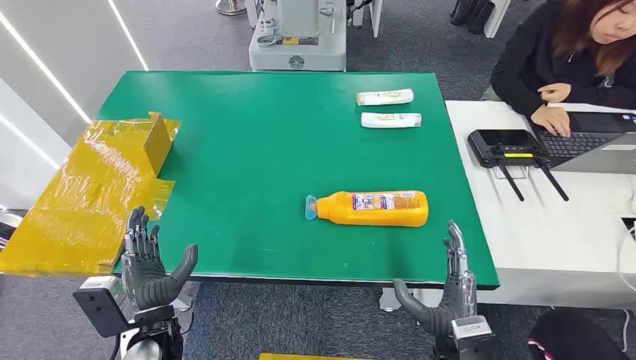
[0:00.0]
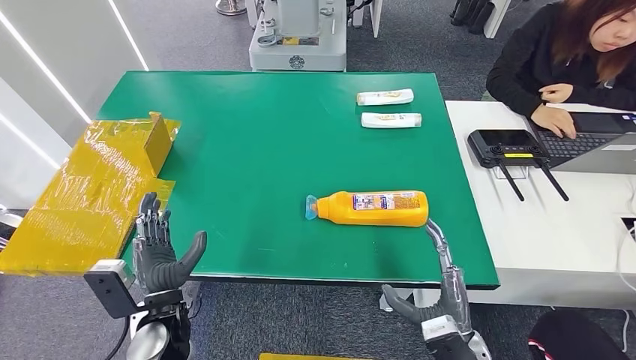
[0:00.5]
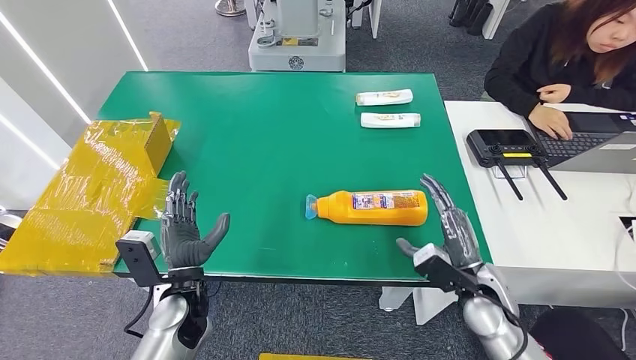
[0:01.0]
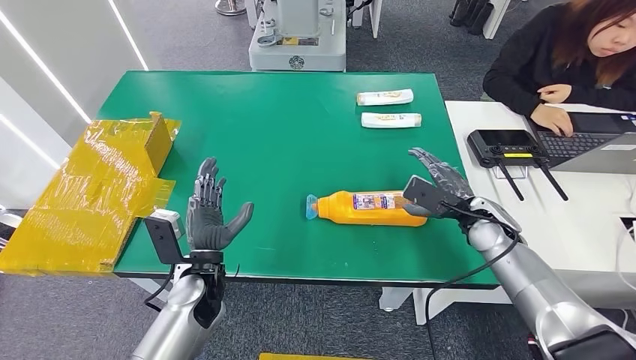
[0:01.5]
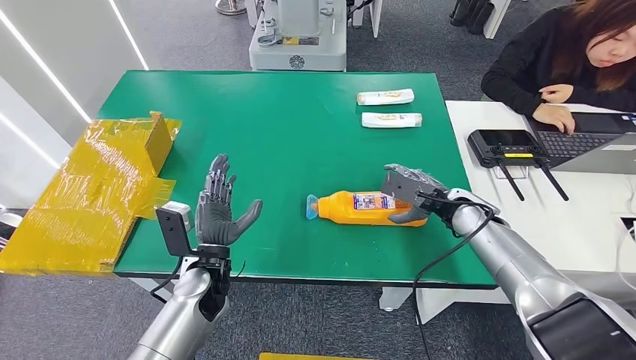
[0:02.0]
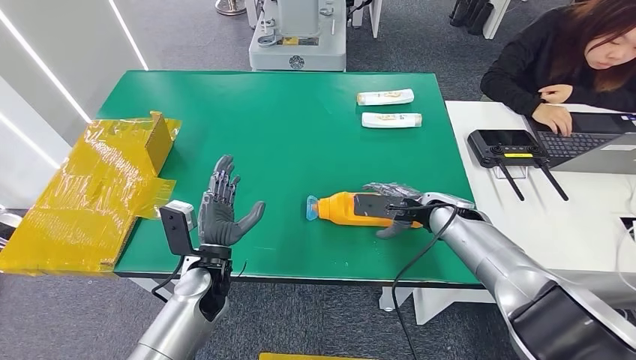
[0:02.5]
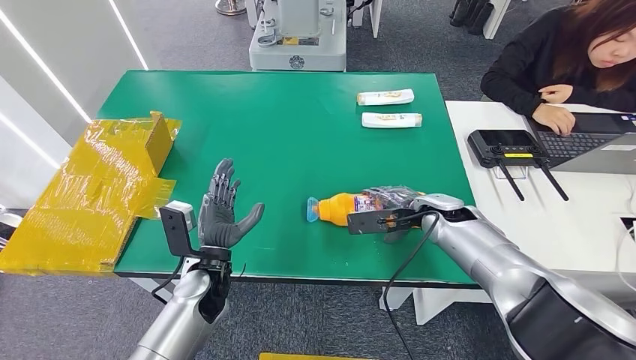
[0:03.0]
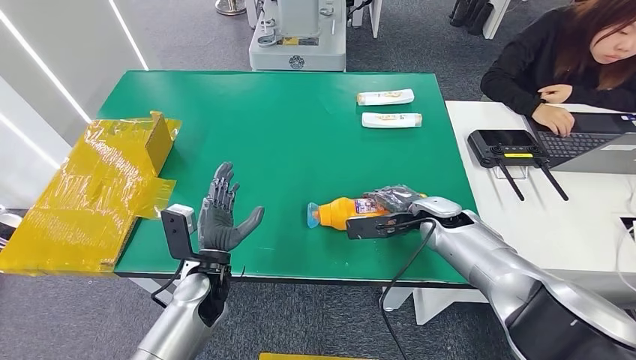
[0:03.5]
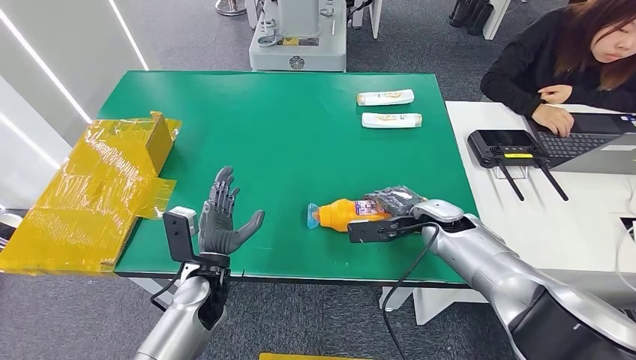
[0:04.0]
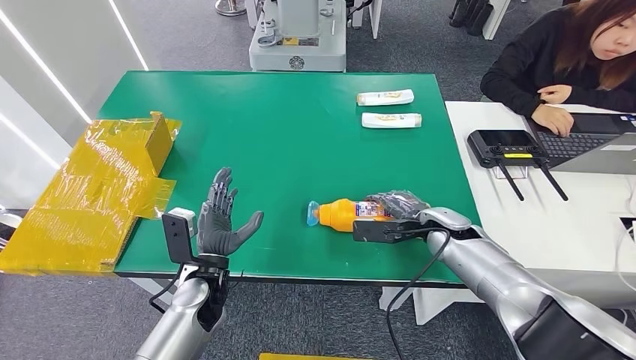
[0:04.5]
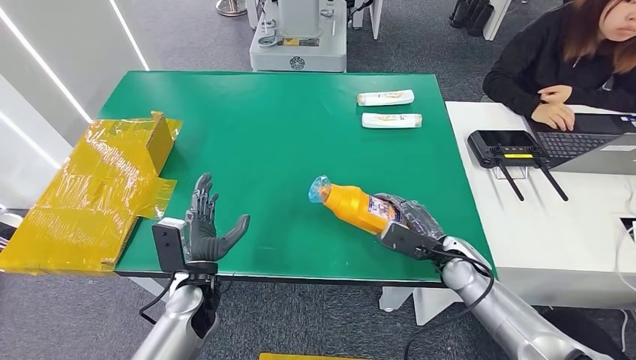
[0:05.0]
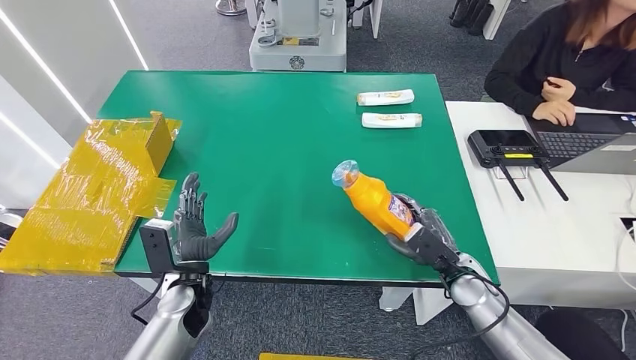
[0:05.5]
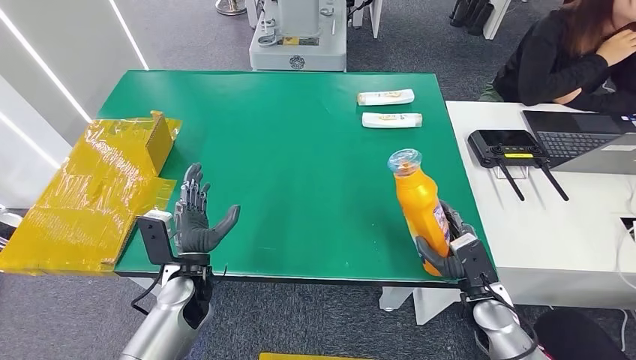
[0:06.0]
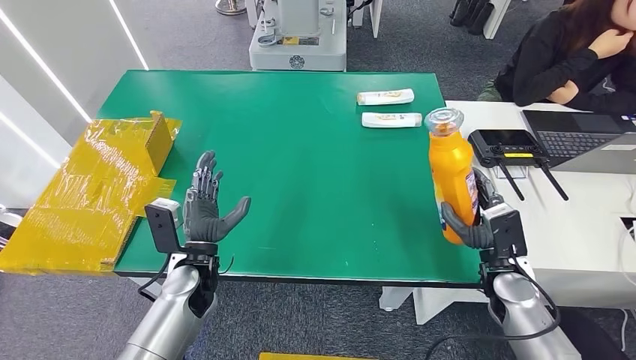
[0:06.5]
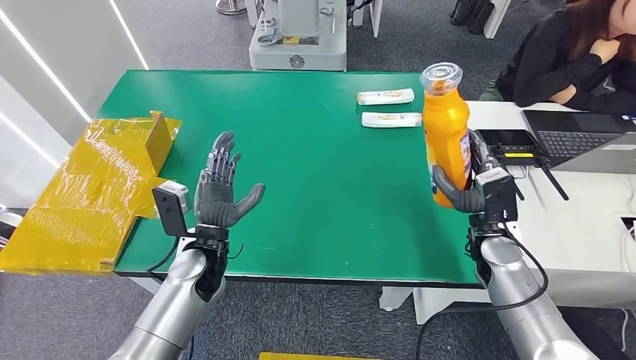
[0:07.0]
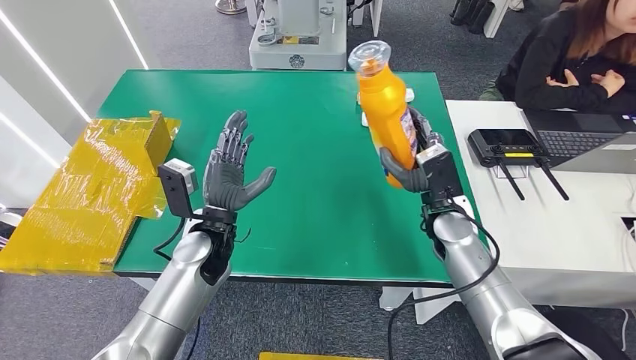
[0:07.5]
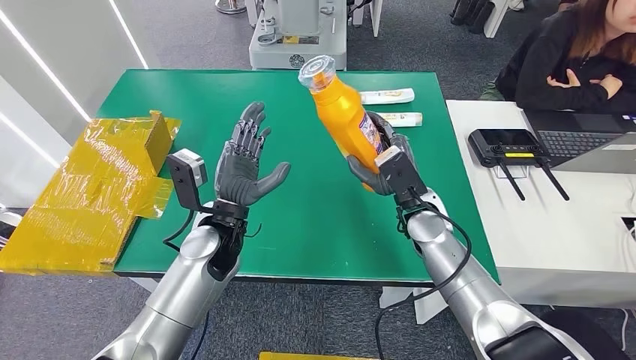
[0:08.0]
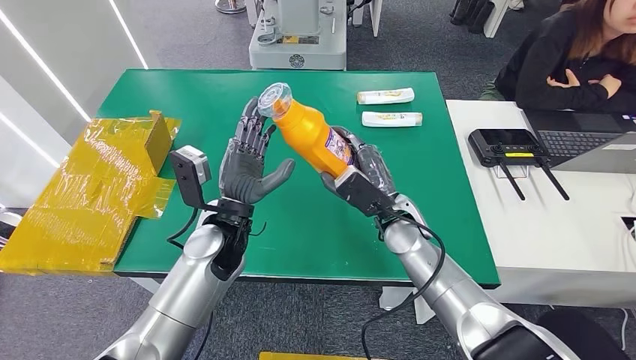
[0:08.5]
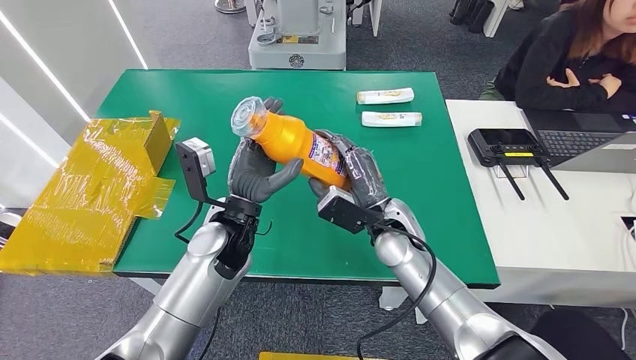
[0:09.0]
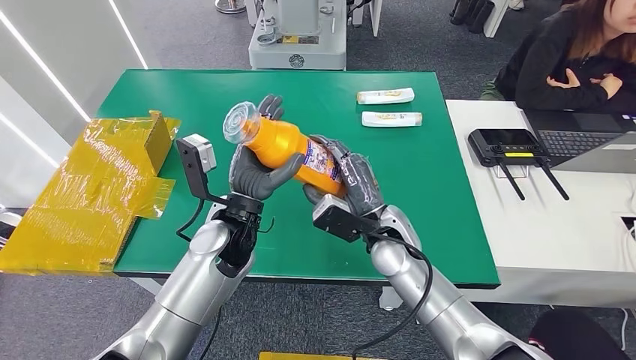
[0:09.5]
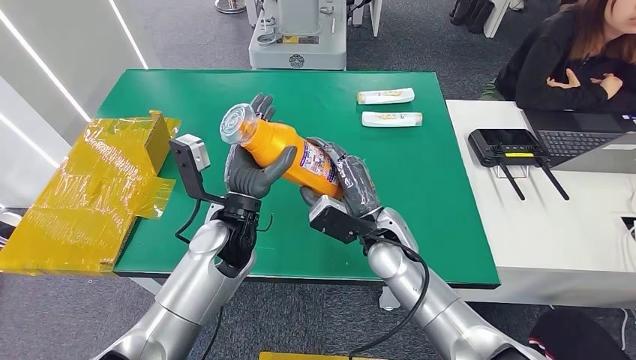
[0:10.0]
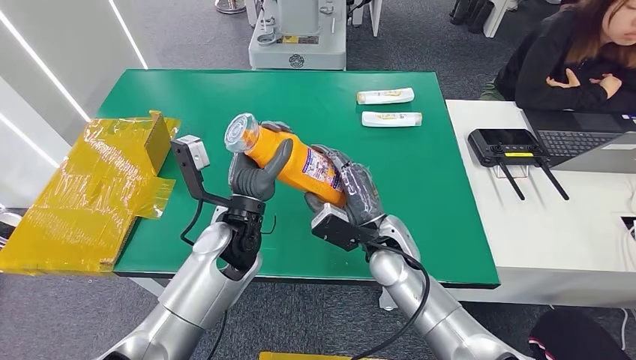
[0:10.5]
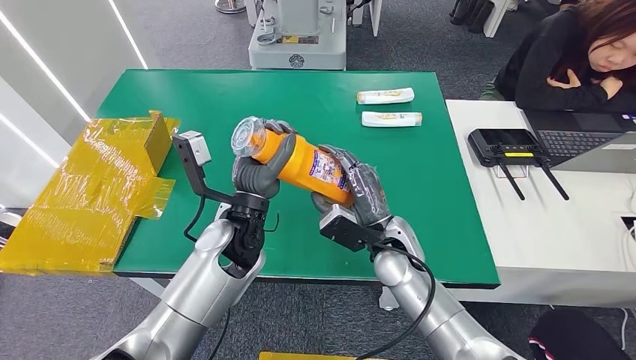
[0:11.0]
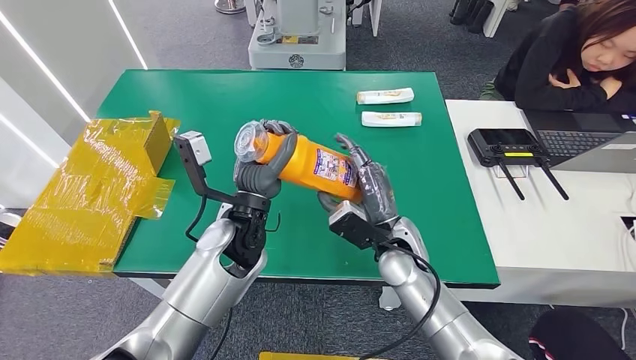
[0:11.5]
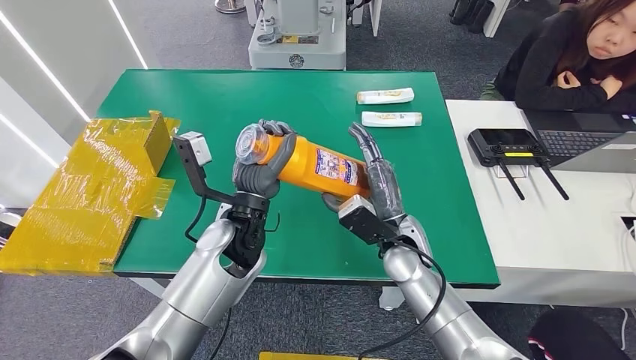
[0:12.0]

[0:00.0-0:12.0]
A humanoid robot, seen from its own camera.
Step, 0:00.0 to 0:05.0: Pick up the bottle from the table.
0:02.0 to 0:04.0: The right hand changes place by approximately 5 cm.
0:04.0 to 0:06.0: The right hand travels backward, downward and to the right by some 20 cm.
0:06.0 to 0:08.0: The left hand shifts about 10 cm upward and to the right. Meanwhile the right hand is displaced to the left, upward and forward by roughly 20 cm.
0:08.0 to 0:10.0: The right hand is displaced to the left by about 5 cm.
0:10.0 to 0:12.0: The hands stay close to where they were, moving slightly.

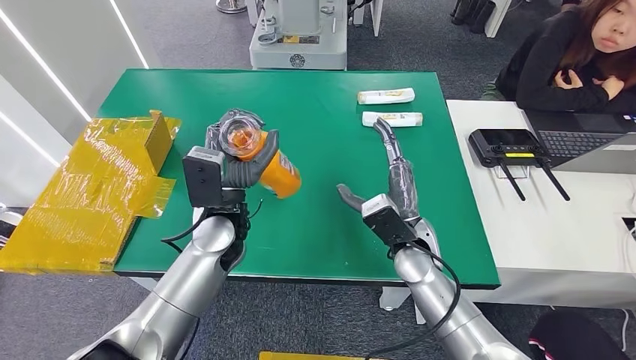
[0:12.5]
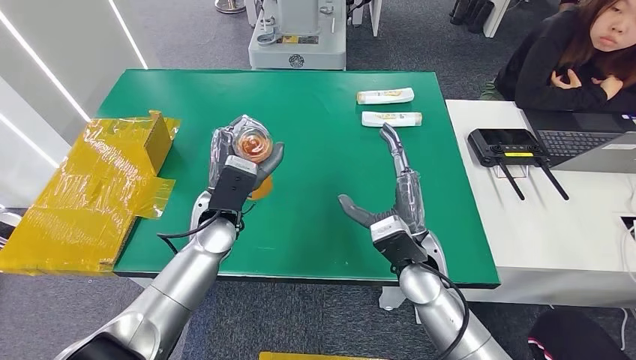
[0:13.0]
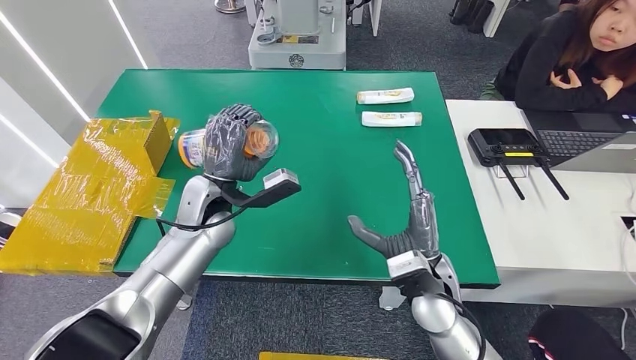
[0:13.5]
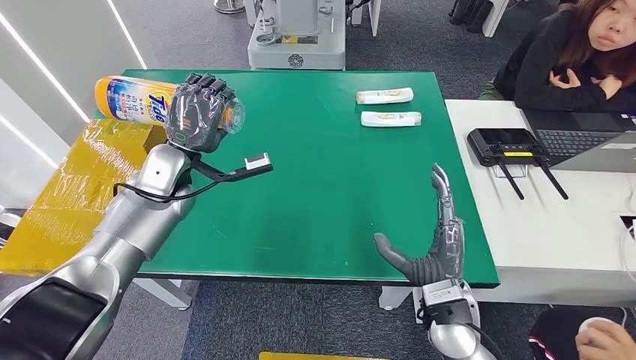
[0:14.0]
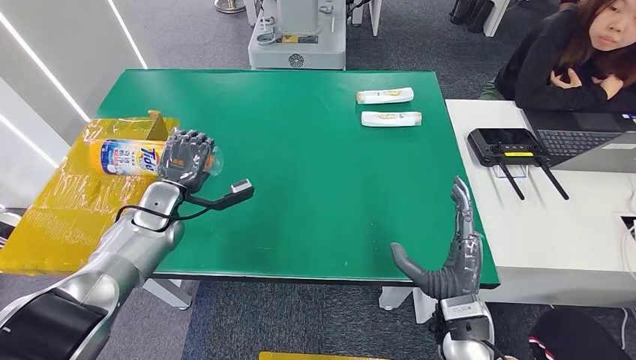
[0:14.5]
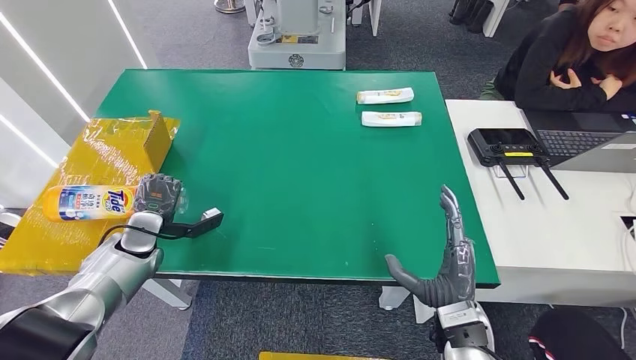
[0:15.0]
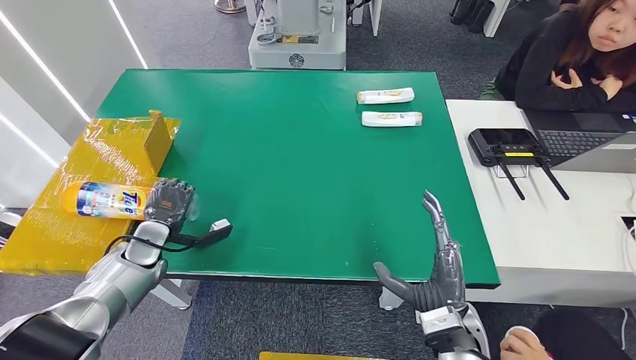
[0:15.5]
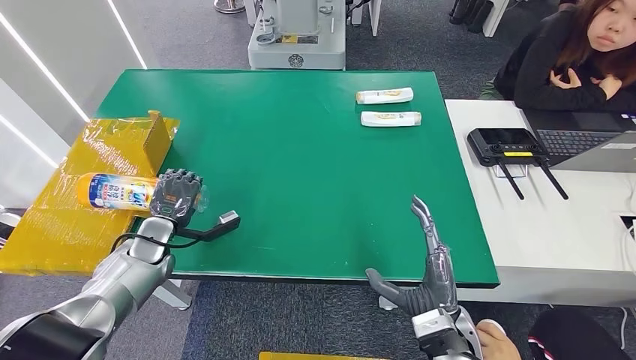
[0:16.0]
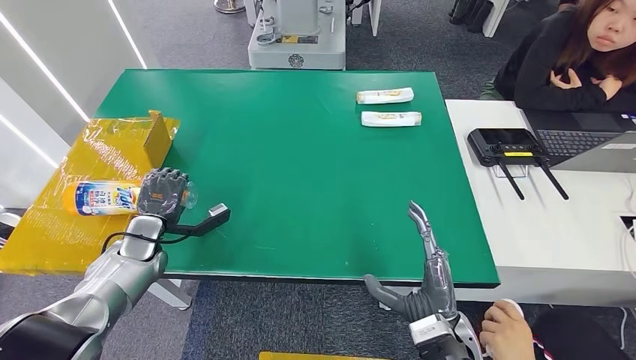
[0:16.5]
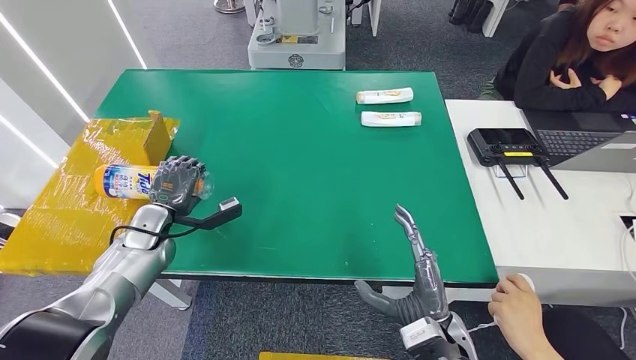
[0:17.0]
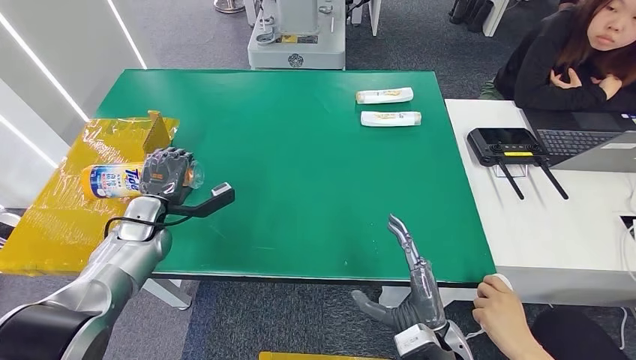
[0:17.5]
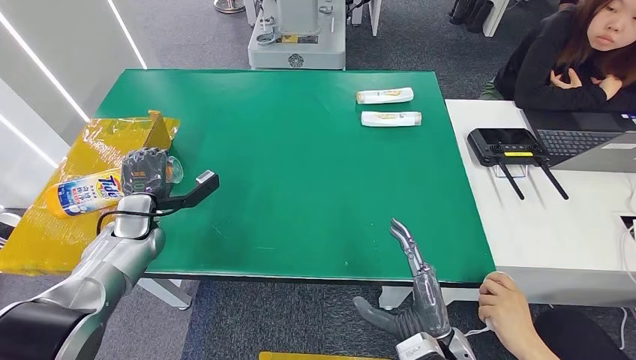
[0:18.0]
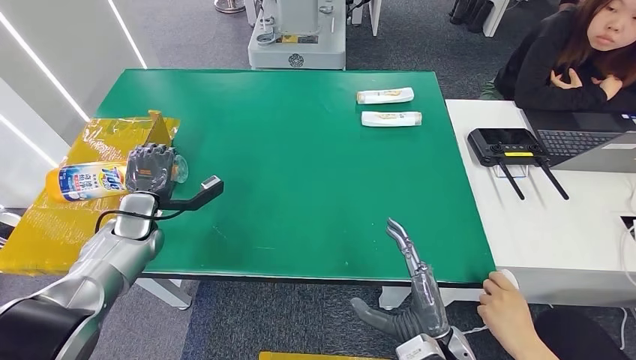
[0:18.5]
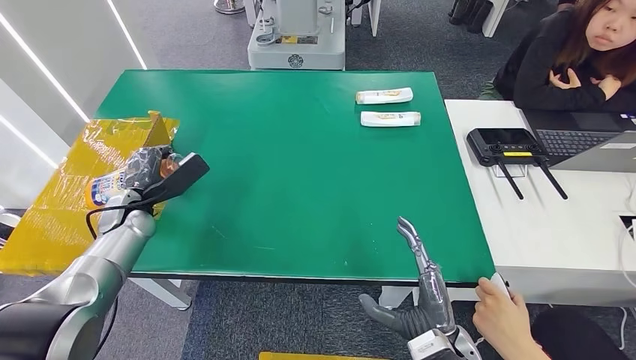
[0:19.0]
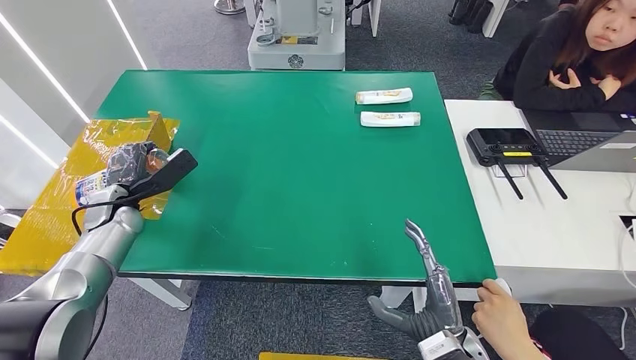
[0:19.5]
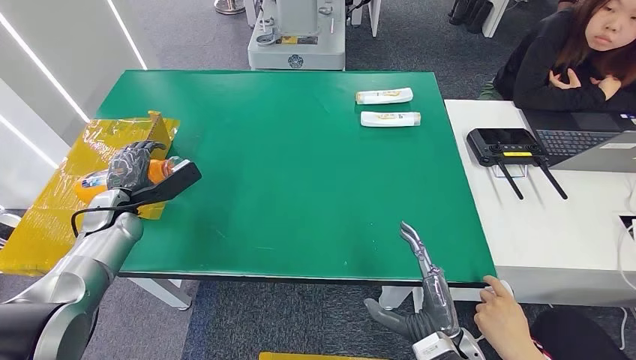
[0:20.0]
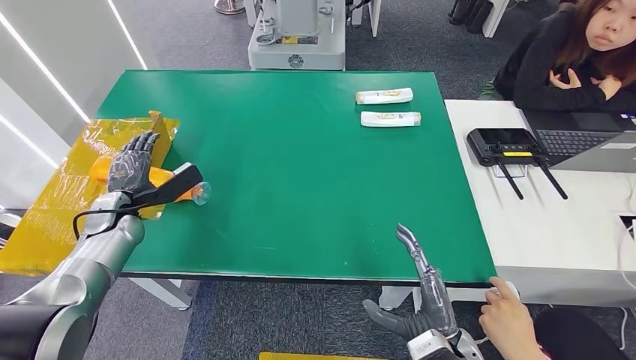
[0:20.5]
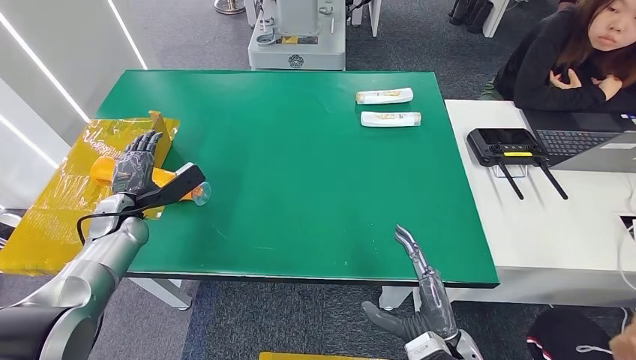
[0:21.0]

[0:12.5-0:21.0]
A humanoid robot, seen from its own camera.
Step, 0:12.5 to 0:21.0: Turn the bottle to the front side.
0:14.5 to 0:16.5: The left hand heads downward and to the left, covering some 10 cm.
0:16.5 to 0:19.0: The left hand shifts by approximately 5 cm.
0:19.0 to 0:21.0: The hands move only a little.
